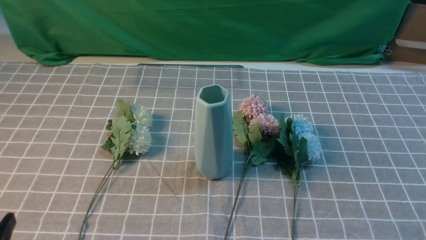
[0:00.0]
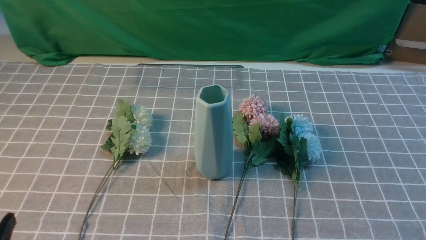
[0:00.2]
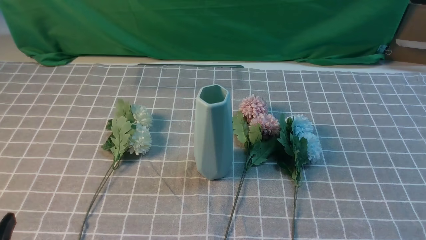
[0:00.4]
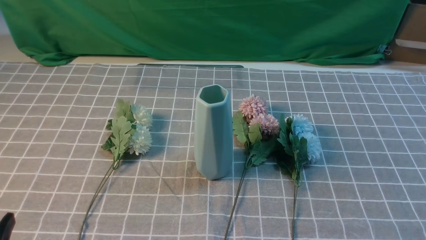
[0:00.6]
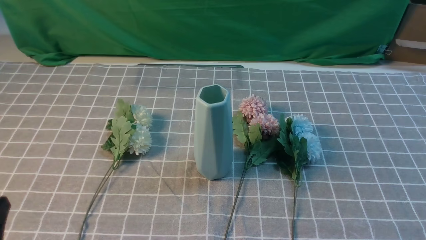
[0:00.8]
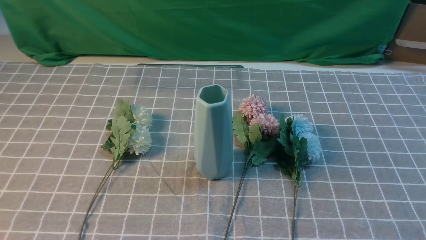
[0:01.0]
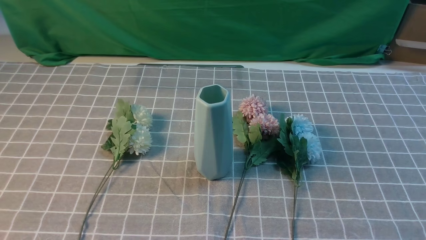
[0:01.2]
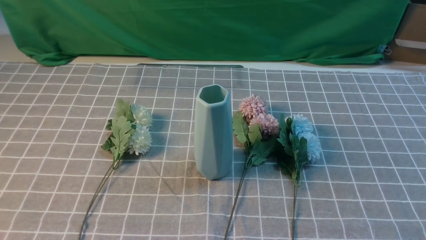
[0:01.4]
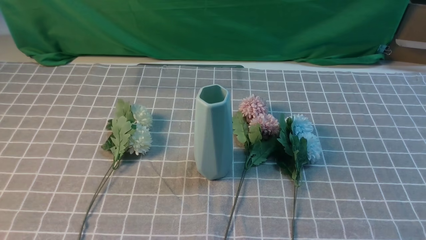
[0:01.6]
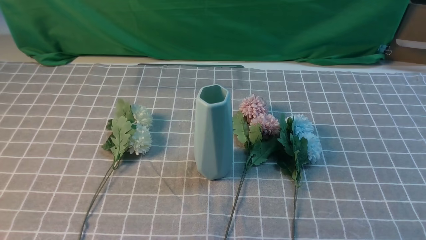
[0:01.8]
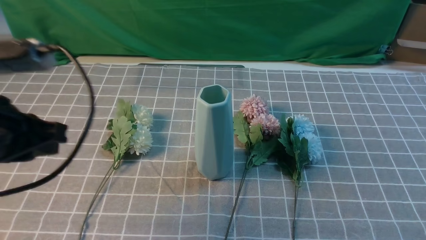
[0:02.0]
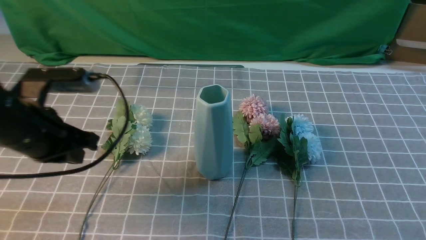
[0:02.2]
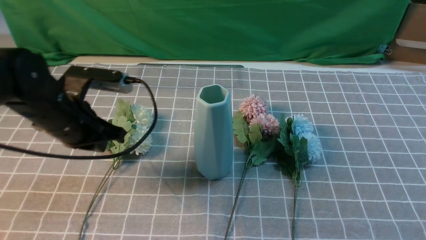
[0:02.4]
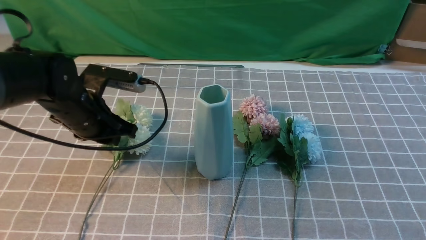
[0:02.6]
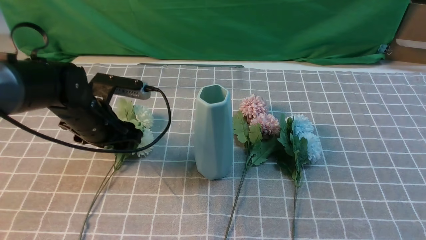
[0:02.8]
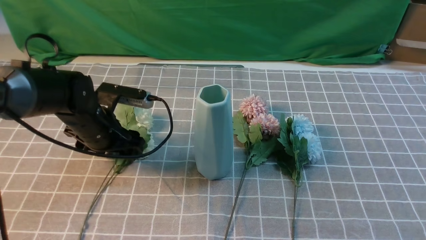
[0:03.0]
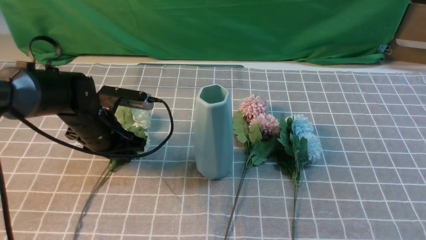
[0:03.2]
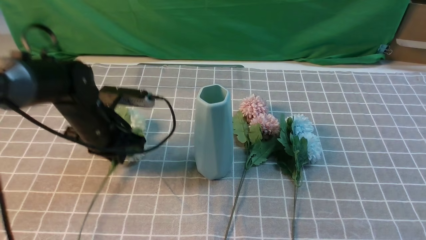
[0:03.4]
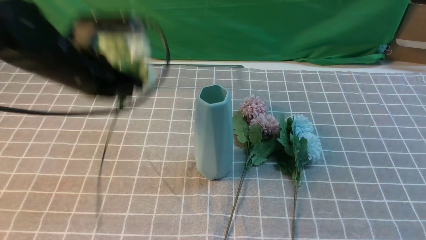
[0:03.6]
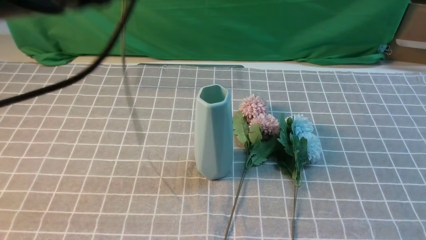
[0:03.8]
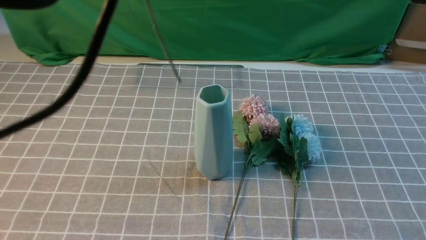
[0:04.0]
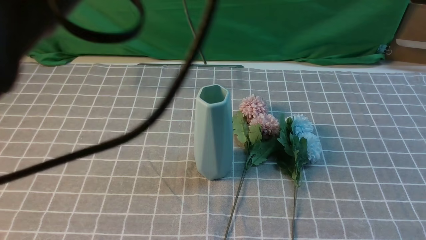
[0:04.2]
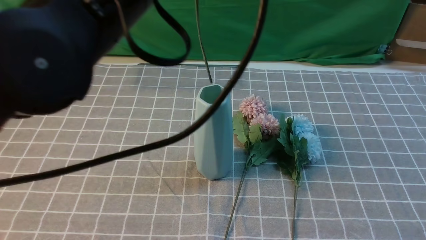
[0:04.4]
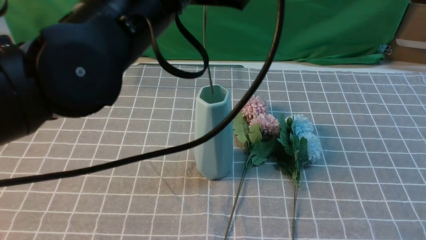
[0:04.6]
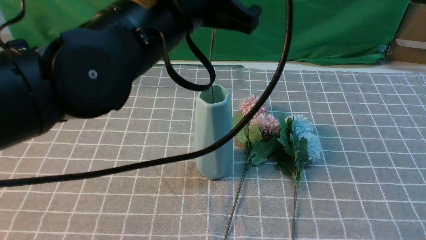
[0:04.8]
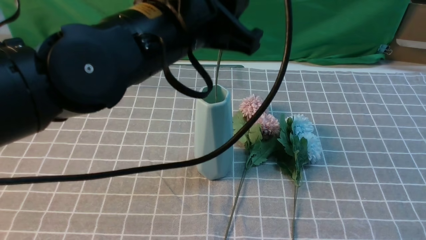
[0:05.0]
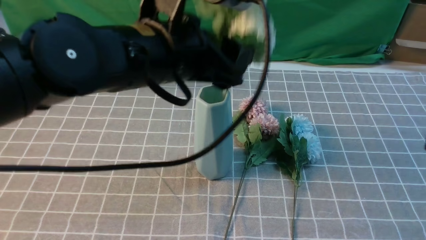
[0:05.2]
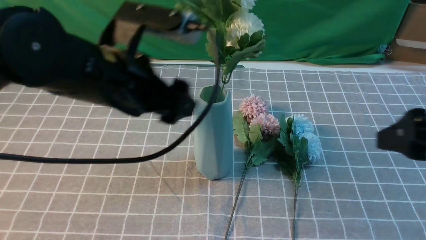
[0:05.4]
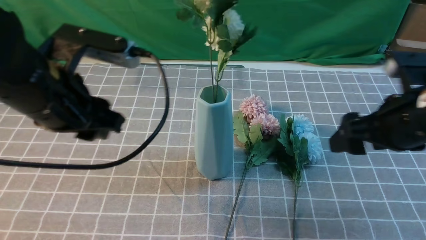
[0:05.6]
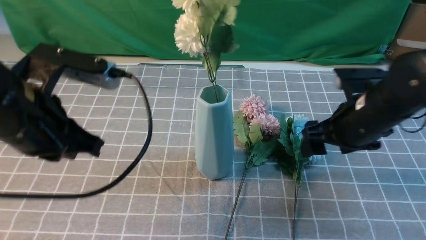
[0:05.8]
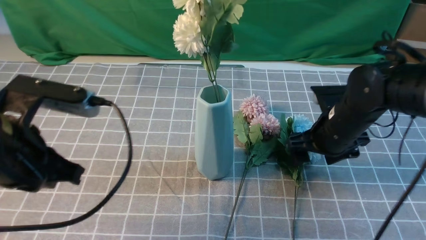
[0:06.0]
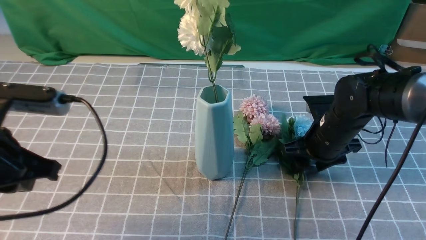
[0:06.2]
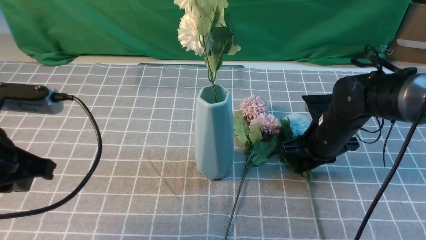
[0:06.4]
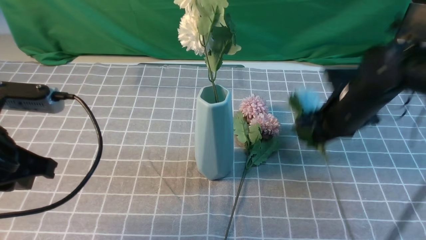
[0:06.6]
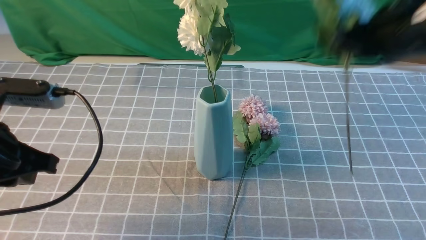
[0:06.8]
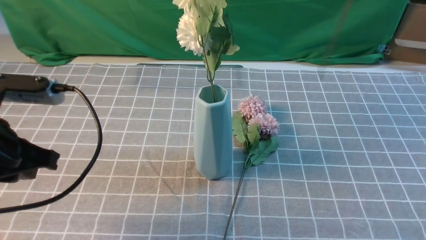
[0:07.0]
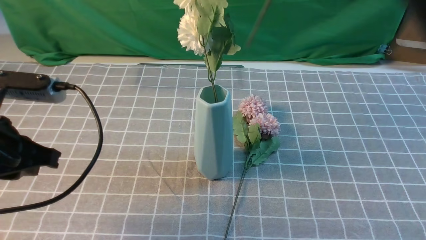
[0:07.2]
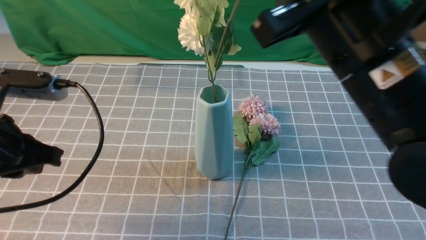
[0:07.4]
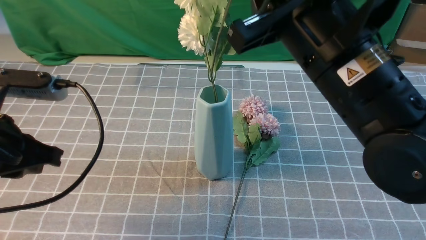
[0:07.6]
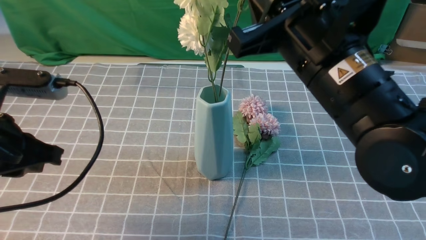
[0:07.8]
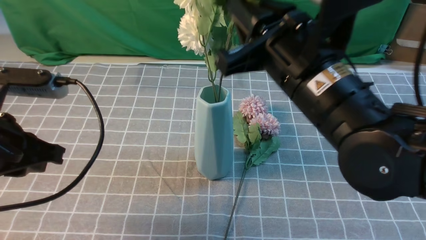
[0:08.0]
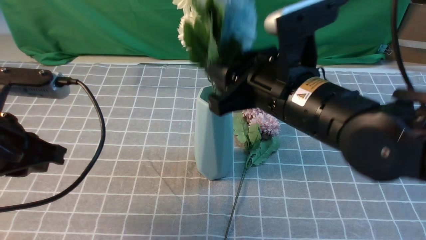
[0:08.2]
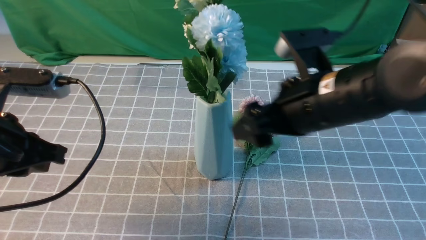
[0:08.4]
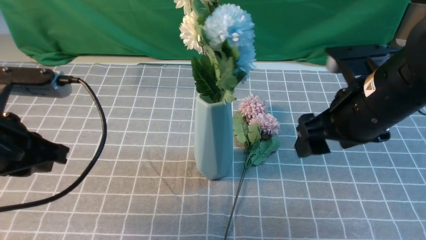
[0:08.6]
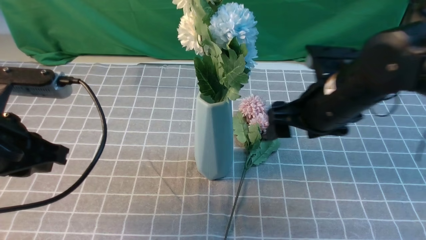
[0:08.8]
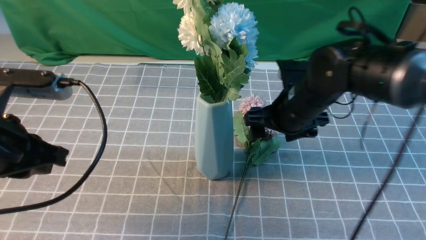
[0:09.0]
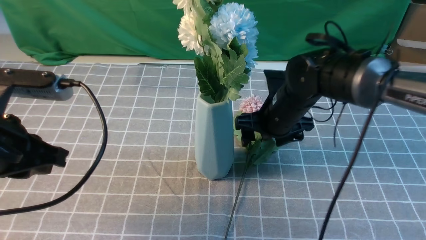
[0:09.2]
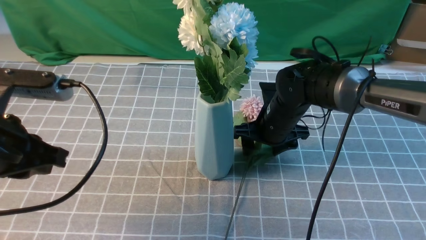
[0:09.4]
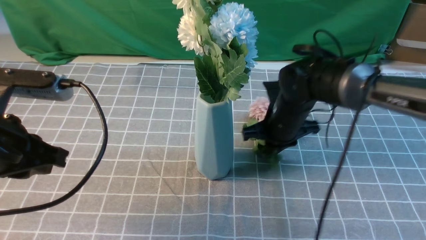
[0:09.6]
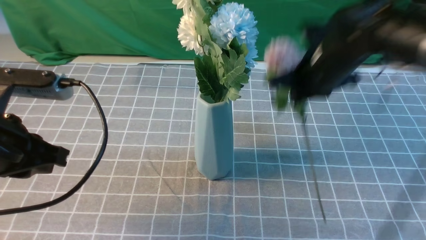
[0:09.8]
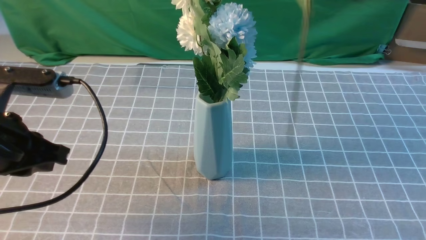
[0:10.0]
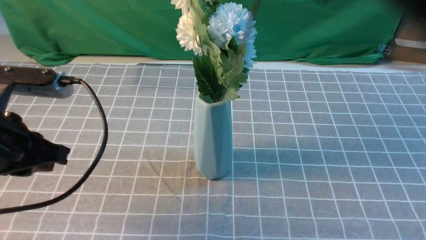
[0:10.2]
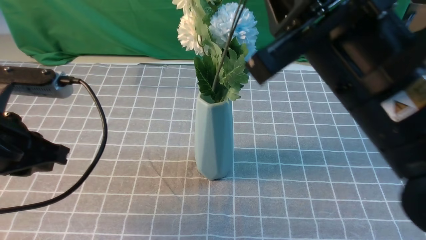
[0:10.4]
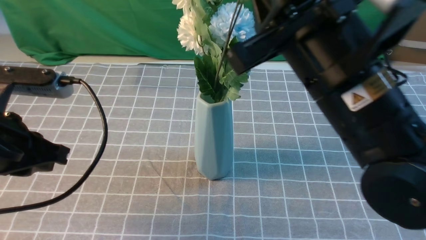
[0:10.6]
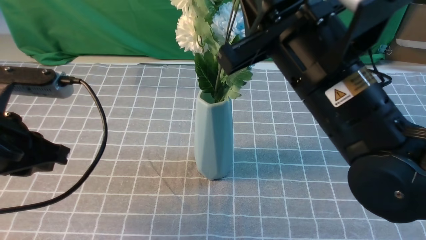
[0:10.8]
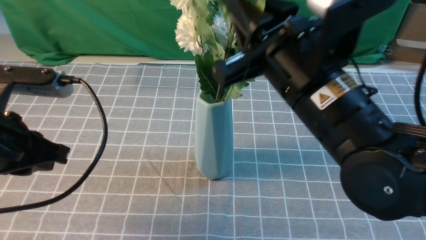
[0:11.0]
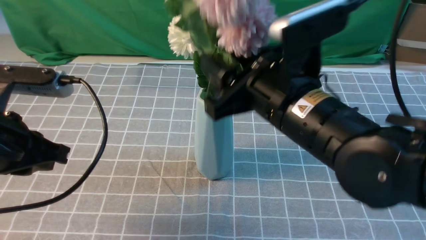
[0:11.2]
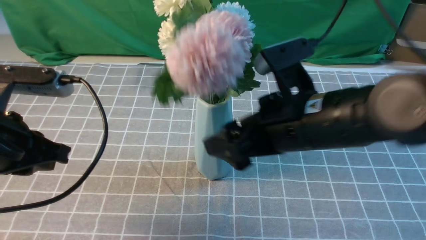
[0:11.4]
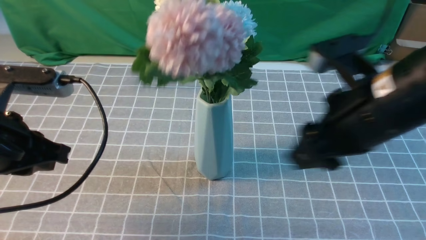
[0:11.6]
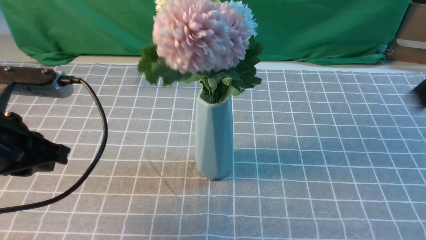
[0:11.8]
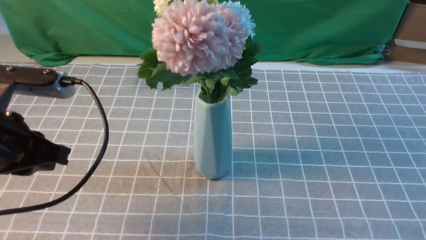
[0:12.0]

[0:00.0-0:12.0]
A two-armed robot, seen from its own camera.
Task of the whole recording: insert the flowers into the vase on the table with the grey tablecloth.
Step, 0:00.0 to 0:03.2: use the left arm to grab a bunch of fresh flowers.
Step, 0:03.4 to 0:05.2: use the left arm to insert the flowers into the vase.
Step, 0:05.4 to 0:06.4: use the right arm to grab a bunch of fresh flowers.
Step, 0:06.6 to 0:08.4: use the right arm to insert the flowers into the vase.
Step, 0:08.6 to 0:09.4: use the right arm to grab a bunch of fresh flowers.
Step, 0:09.6 to 0:11.4: use the right arm to insert the flowers into the vase.
0:01.6 to 0:03.0: The right gripper goes approximately 15 cm upward and forward, while the left gripper travels forward and downward by approximately 35 cm, and opens up.
0:03.0 to 0:04.4: The left gripper goes approximately 30 cm upward, to the right and backward, and closes its fingers.
0:04.4 to 0:06.0: The left gripper moves to the left and downward, roughly 20 cm, and opens, then closes once more; the right gripper shifts roughly 30 cm forward, downward and to the left, and opens up.
0:06.0 to 0:07.6: The right gripper heads upward, backward and to the left, covering about 25 cm, and closes.
0:07.6 to 0:09.0: The right gripper moves downward and forward, about 20 cm, and opens up.
0:09.0 to 0:10.4: The right gripper travels upward and backward by roughly 25 cm, and closes.
0:10.4 to 0:12.0: The right gripper travels to the right and backward by some 20 cm, and opens, then closes once more.

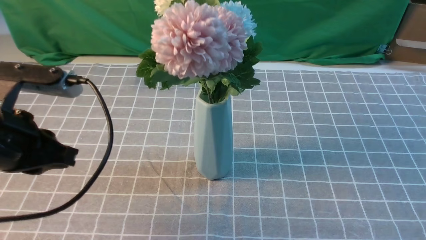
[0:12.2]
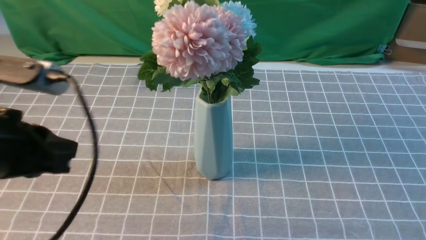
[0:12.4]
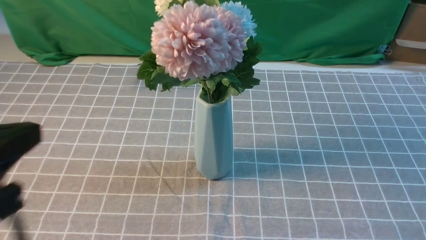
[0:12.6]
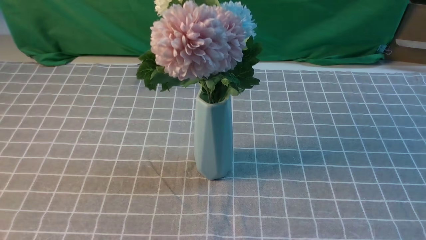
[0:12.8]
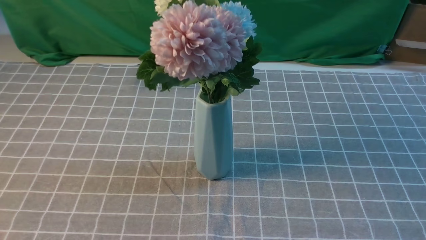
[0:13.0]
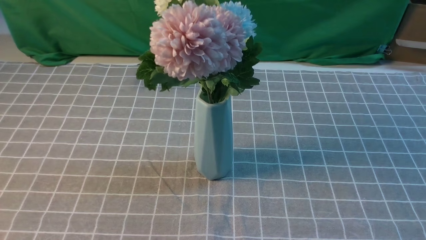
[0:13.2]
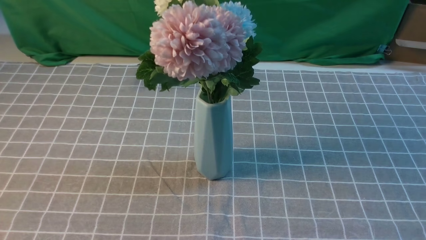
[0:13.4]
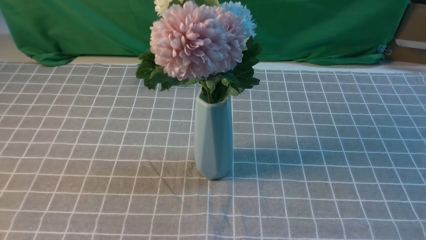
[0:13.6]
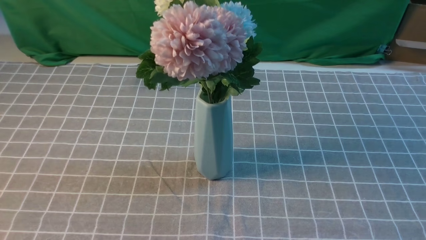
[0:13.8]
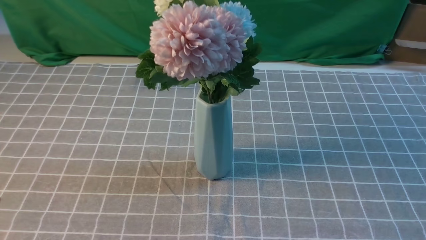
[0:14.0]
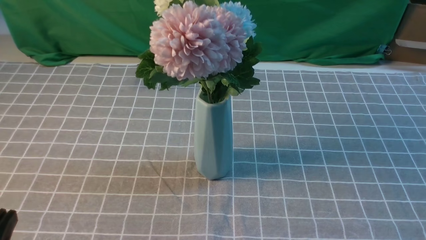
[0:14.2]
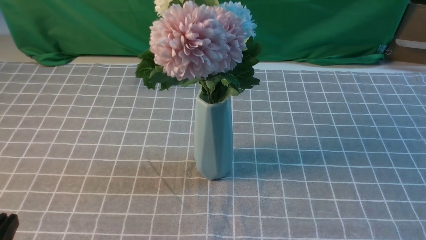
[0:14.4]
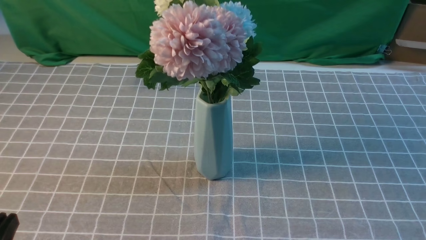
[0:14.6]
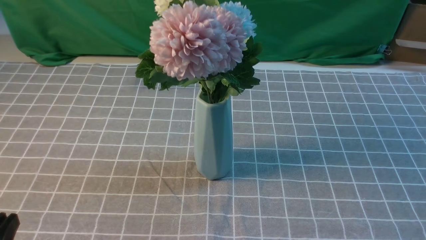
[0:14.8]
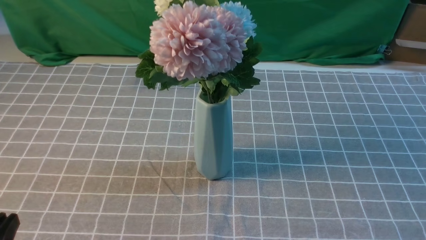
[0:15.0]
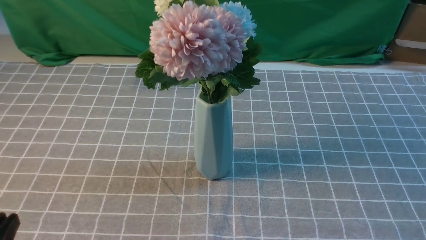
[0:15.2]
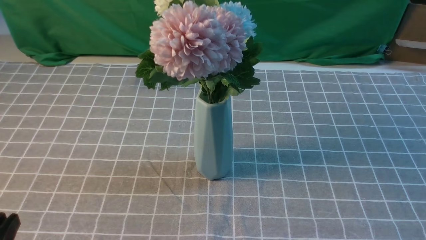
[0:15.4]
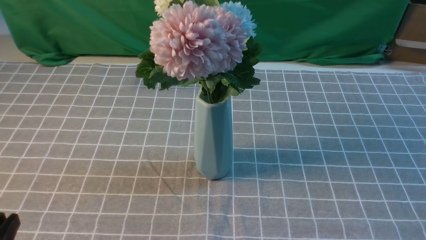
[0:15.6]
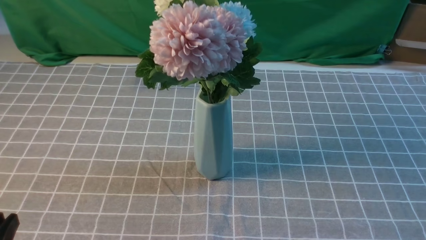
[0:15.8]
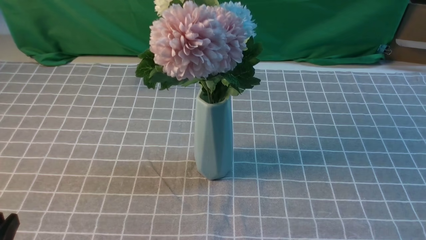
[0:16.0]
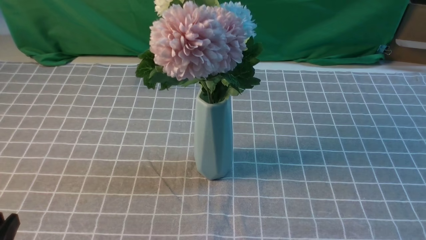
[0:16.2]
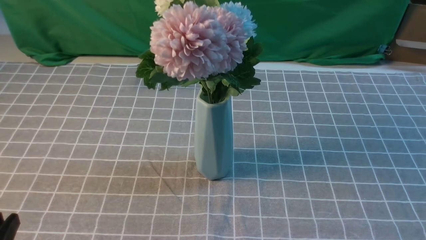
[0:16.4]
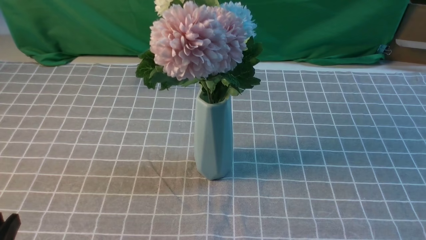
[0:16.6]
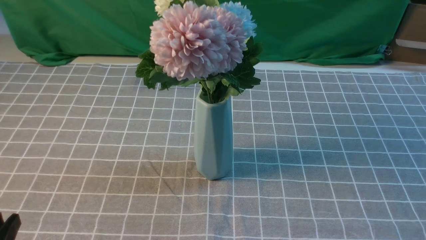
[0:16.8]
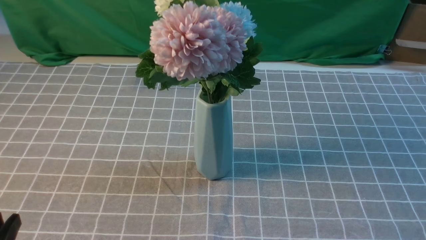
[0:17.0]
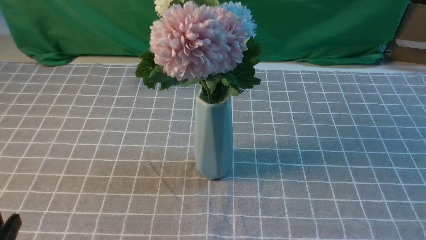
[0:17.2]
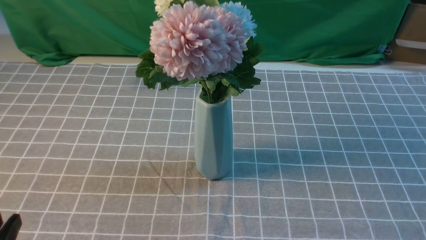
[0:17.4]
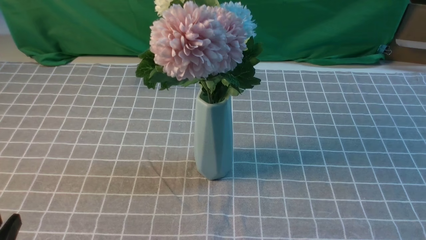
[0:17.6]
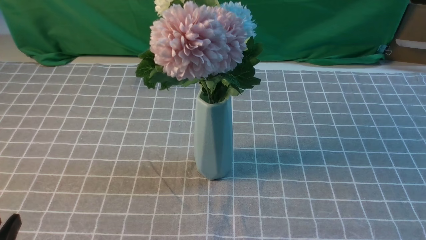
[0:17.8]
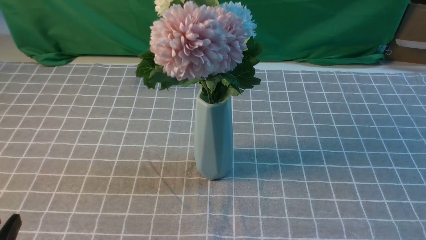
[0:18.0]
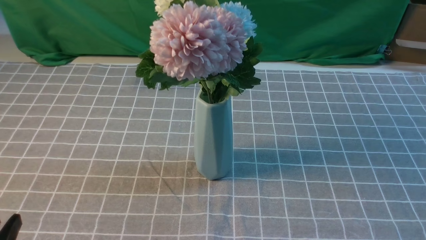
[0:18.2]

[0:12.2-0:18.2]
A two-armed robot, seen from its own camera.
Task of the whole recording: insert the flowers into the vase on the table with the grey tablecloth.
0:12.2 to 0:13.8: The left gripper is displaced backward by approximately 15 cm. The right gripper shifts about 5 cm downward.
0:16.6 to 0:18.2: Both grippers stay put.
